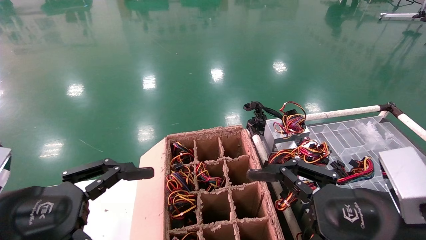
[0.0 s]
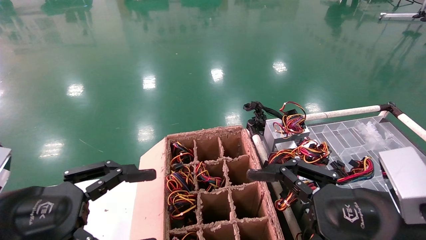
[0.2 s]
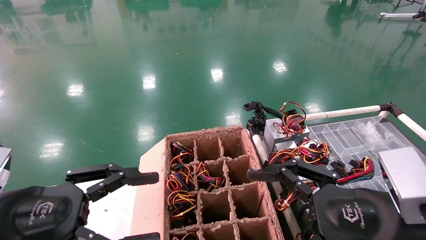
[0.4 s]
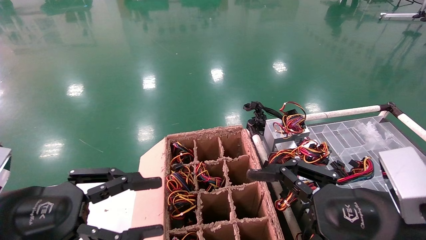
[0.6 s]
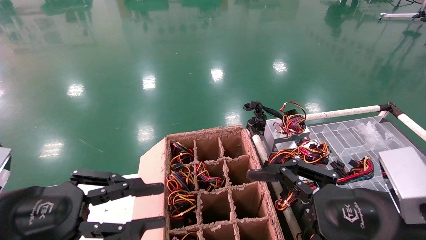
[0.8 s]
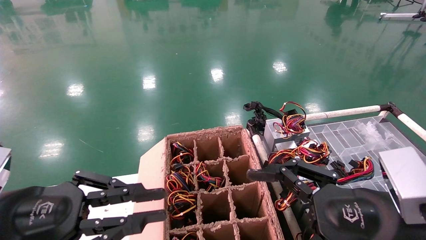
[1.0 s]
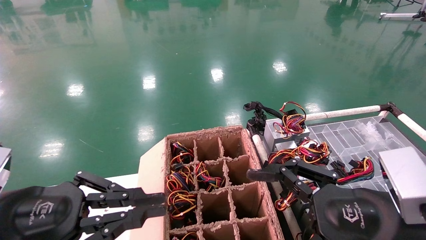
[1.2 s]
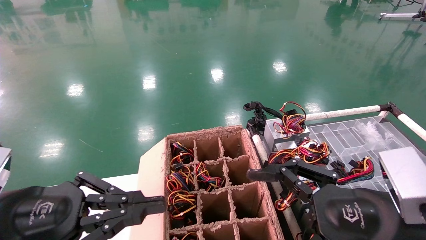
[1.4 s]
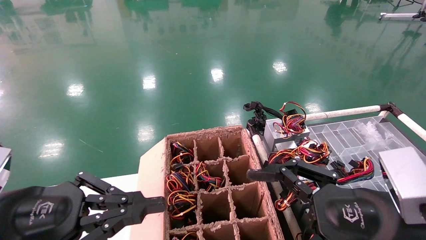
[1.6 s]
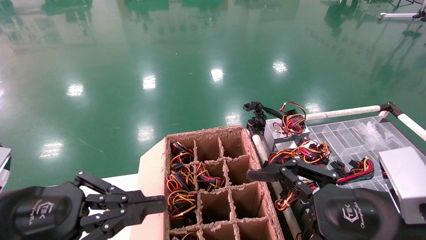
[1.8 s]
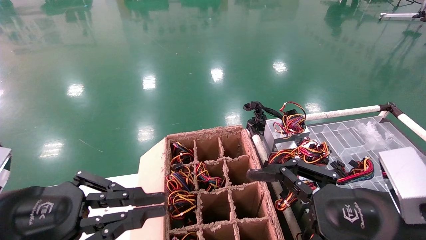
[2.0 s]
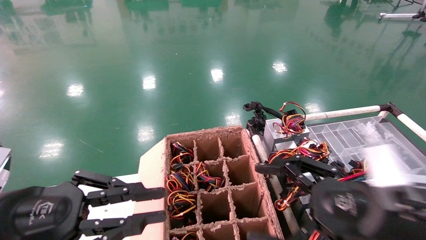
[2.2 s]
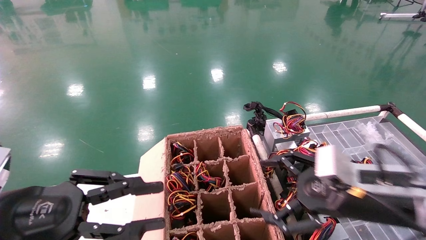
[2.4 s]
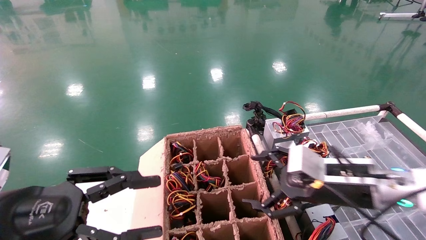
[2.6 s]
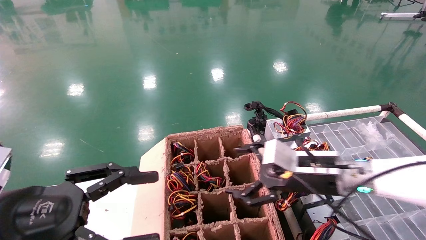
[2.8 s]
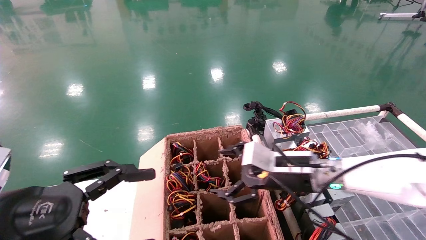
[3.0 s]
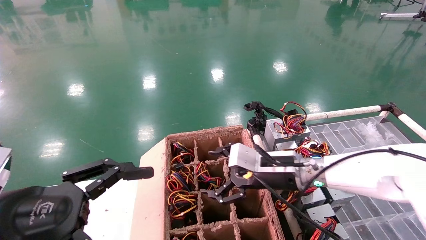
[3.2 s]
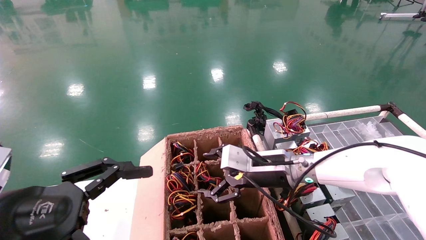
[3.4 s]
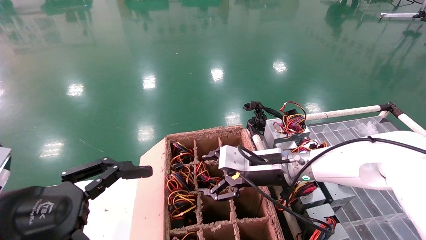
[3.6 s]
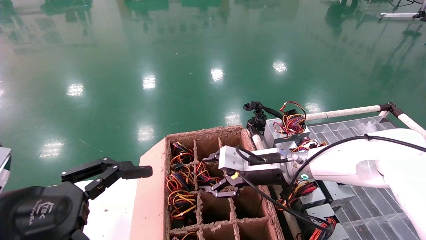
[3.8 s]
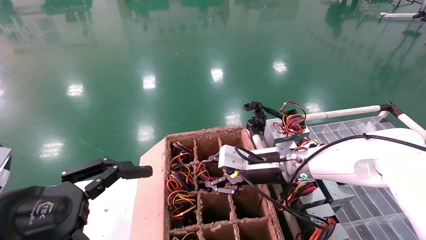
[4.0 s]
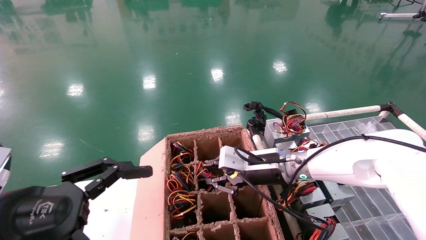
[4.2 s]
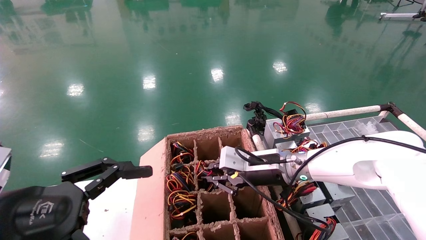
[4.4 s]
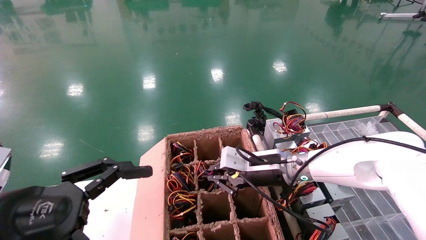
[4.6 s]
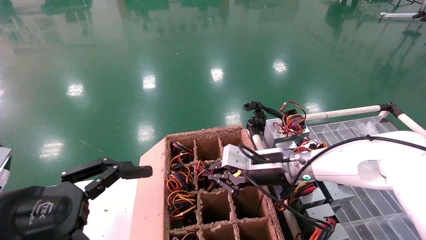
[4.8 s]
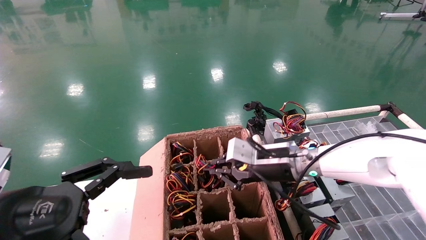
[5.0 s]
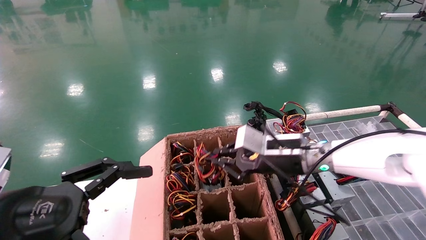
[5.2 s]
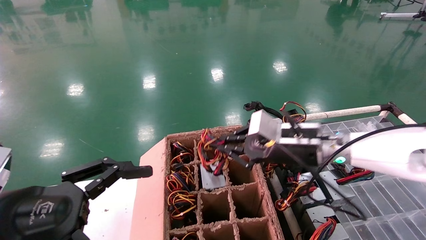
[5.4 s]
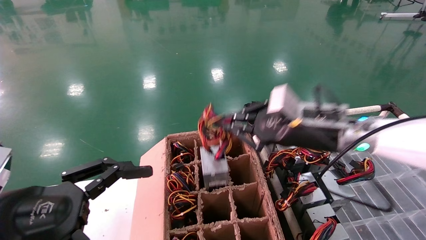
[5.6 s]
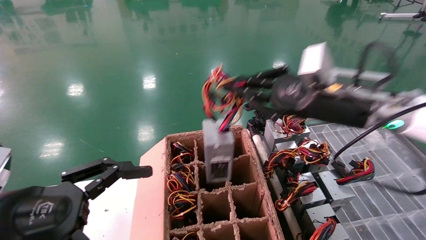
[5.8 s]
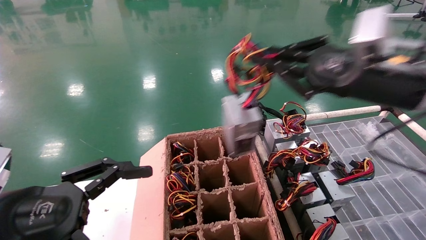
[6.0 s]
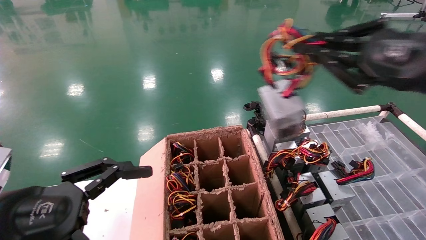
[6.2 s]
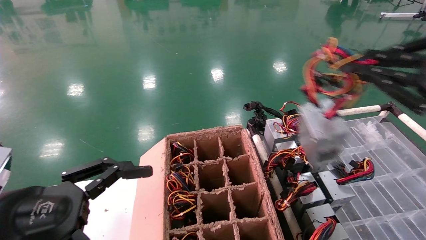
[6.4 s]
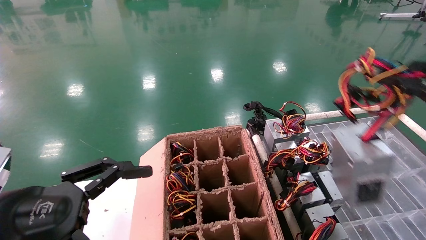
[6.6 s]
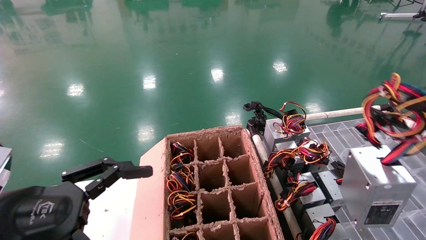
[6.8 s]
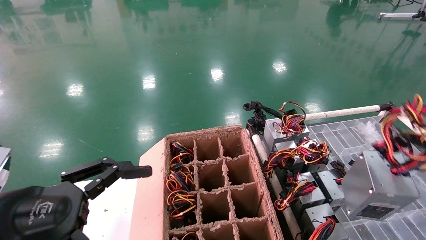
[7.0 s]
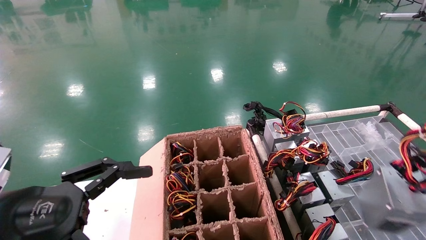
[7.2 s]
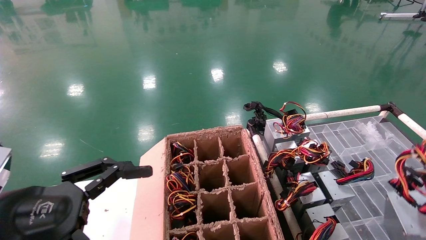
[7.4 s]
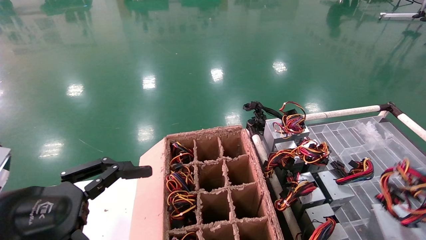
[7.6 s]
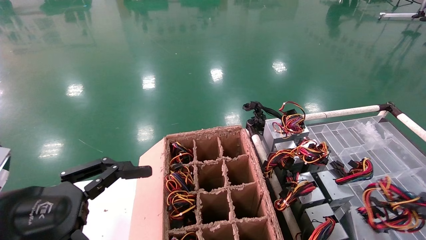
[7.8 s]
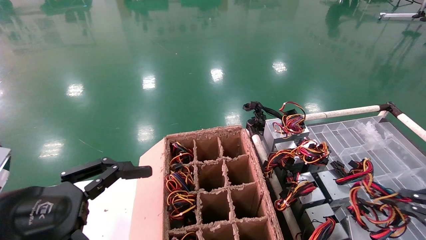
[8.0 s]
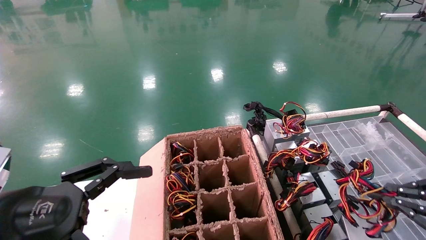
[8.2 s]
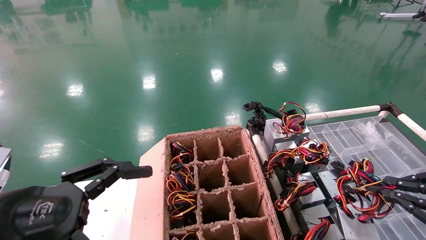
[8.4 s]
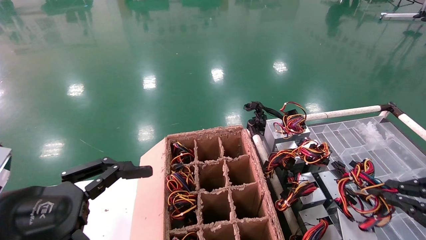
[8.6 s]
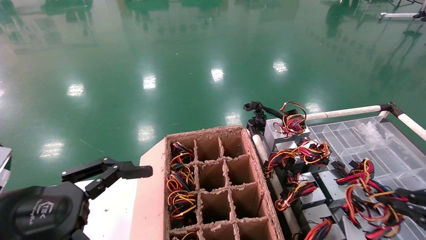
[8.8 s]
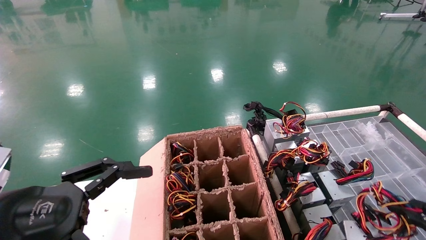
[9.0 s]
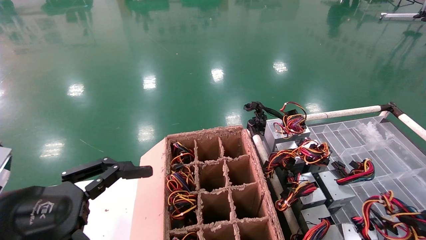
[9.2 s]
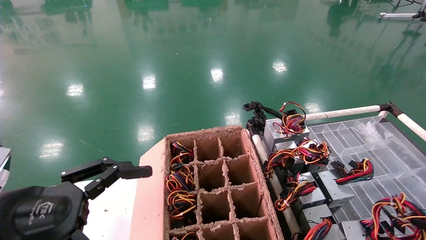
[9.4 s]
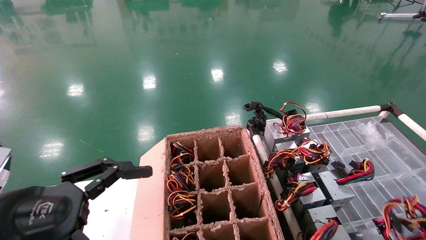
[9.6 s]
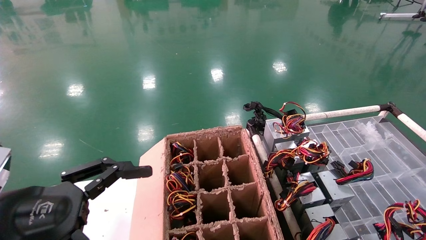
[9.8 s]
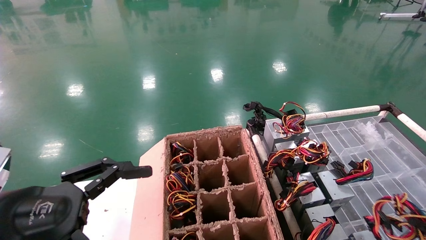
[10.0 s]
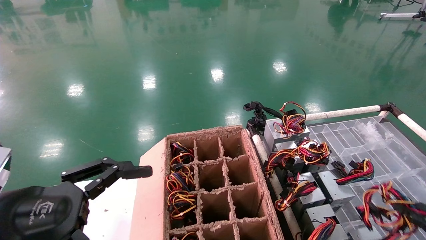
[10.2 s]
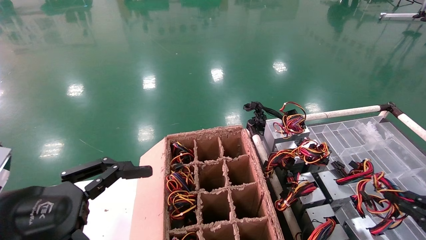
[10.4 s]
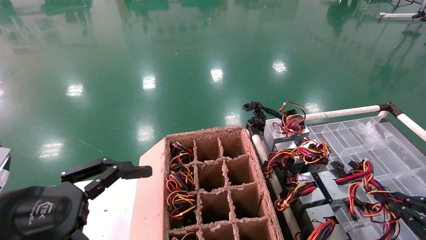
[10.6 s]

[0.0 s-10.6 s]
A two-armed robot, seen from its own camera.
Step, 1.6 to 4.6 s: Grab and lift the power supply from the large box.
0.0 to 1.6 s: The left gripper closes its fingers.
1.6 to 3.0 s: The left gripper opens up. The right gripper moves forward, some 20 cm.
3.0 to 4.6 s: The right gripper shifts by about 5 cm, and closes its fingers.
4.6 to 6.0 s: The right gripper is displaced upward, to the right and backward by about 25 cm.
6.0 to 7.6 s: The right gripper goes roughly 30 cm to the right, backward and downward.
7.6 to 9.0 s: The right gripper moves downward, roughly 10 cm.
9.0 to 10.6 s: The grippers move only a little.

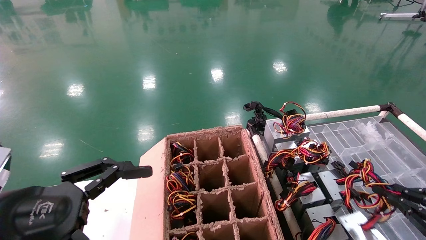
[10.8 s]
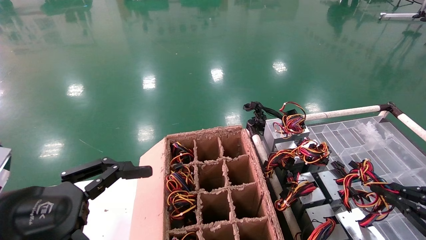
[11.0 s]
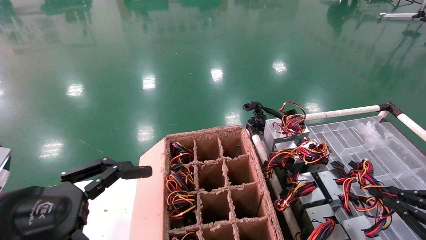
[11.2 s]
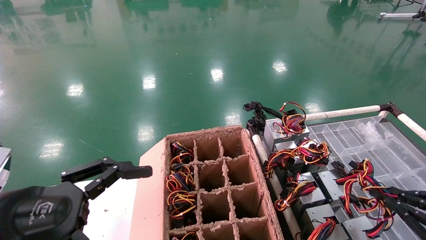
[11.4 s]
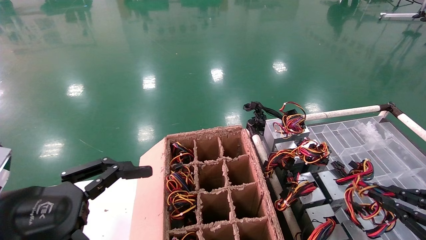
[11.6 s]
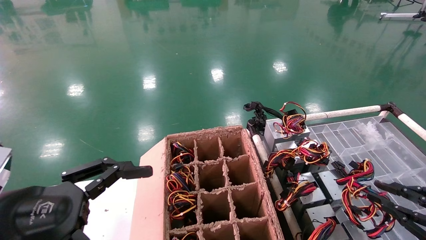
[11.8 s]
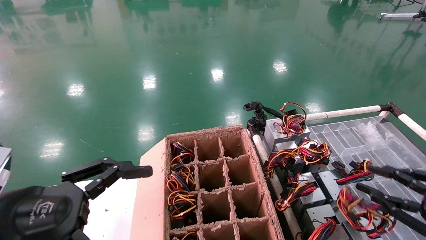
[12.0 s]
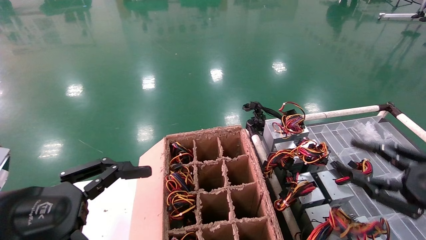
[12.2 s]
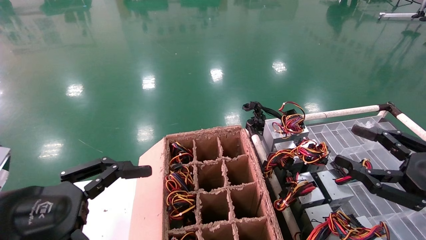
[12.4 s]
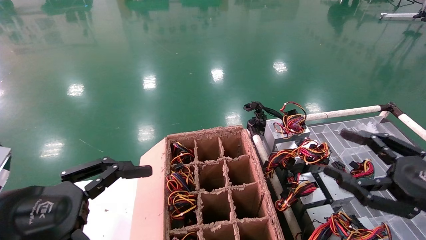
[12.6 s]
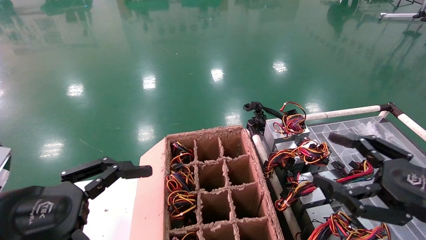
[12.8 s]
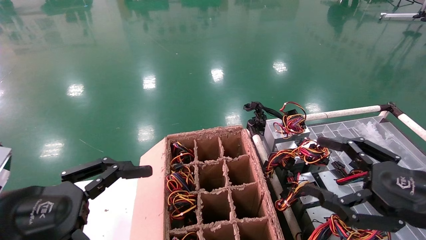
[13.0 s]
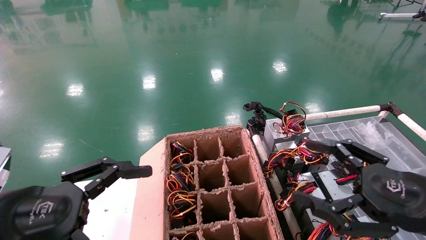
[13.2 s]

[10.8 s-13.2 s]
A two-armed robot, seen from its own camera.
10.8 to 12.0 s: The grippers move only a little.
12.0 to 13.2 s: The right gripper heads to the left, covering some 10 cm, and opens.
